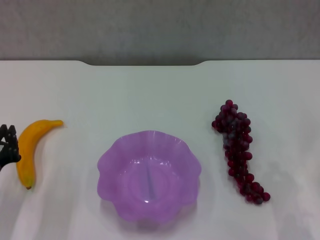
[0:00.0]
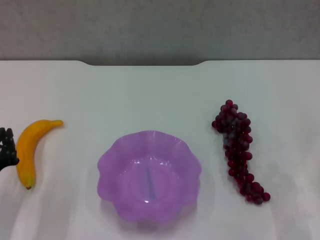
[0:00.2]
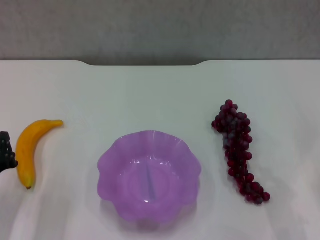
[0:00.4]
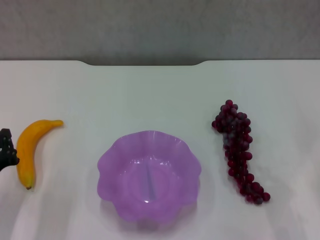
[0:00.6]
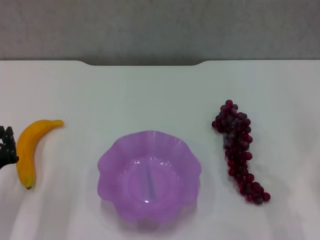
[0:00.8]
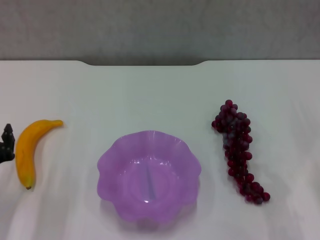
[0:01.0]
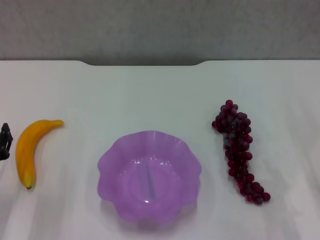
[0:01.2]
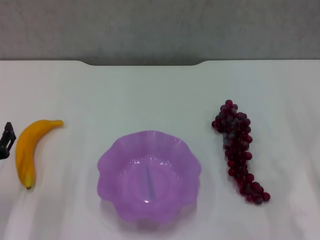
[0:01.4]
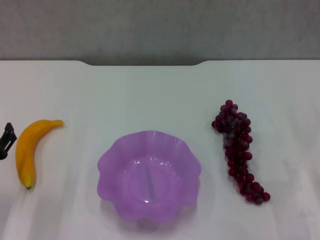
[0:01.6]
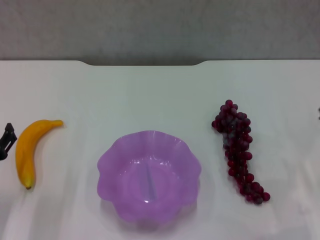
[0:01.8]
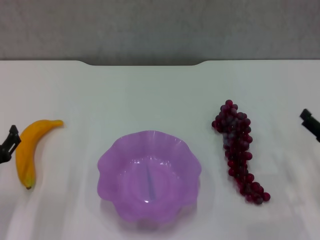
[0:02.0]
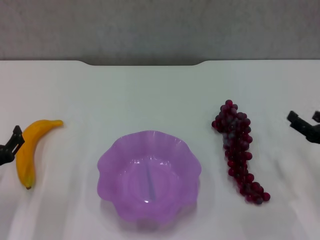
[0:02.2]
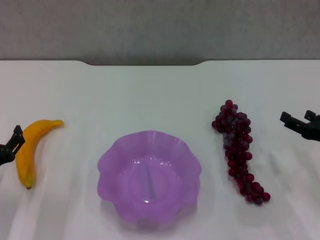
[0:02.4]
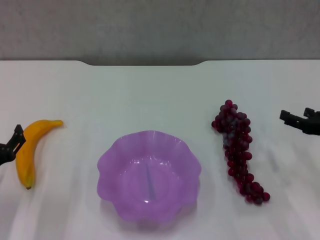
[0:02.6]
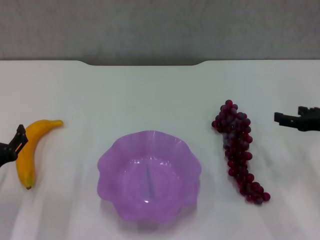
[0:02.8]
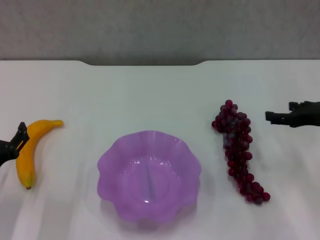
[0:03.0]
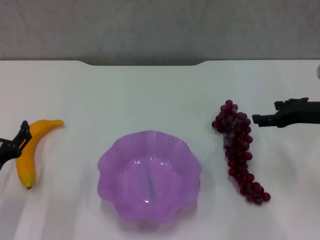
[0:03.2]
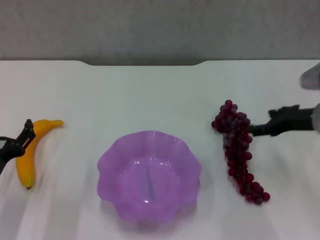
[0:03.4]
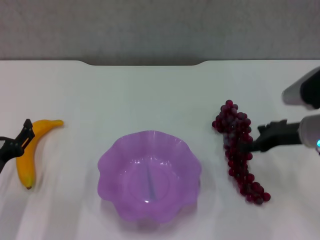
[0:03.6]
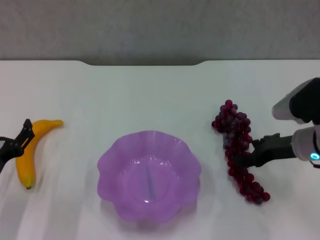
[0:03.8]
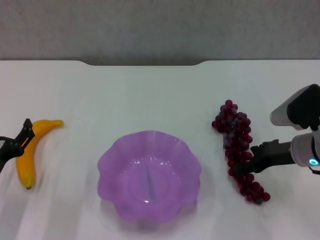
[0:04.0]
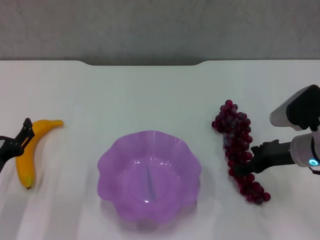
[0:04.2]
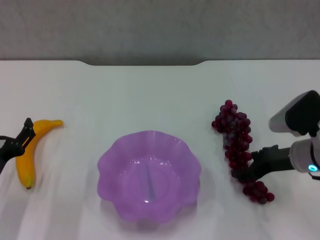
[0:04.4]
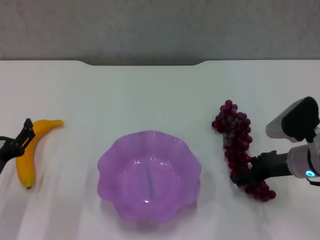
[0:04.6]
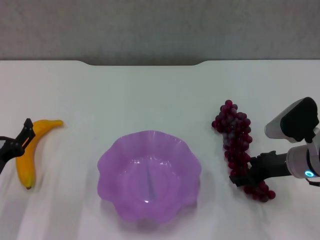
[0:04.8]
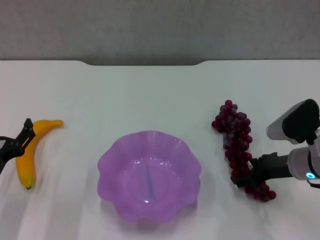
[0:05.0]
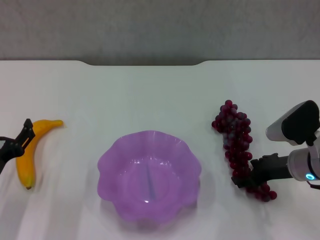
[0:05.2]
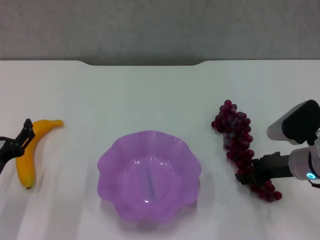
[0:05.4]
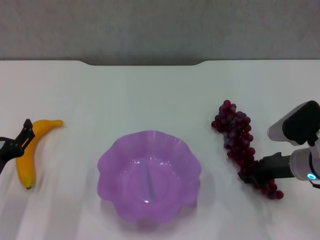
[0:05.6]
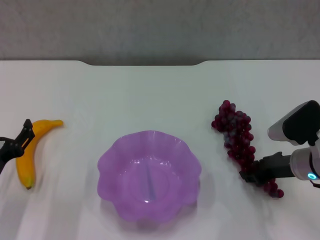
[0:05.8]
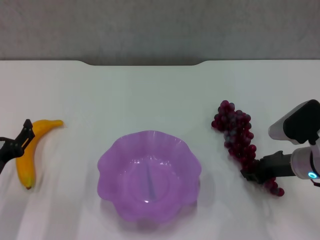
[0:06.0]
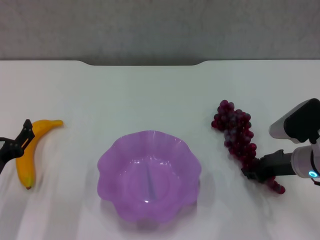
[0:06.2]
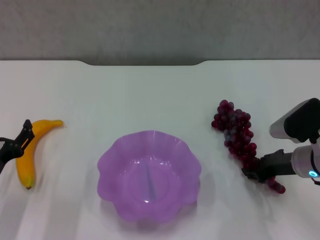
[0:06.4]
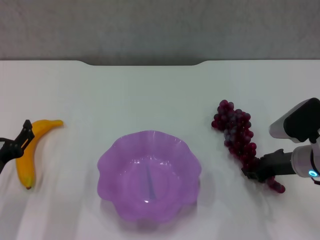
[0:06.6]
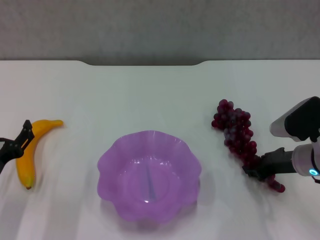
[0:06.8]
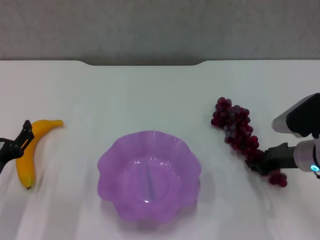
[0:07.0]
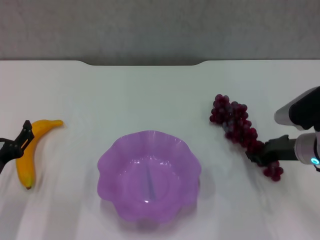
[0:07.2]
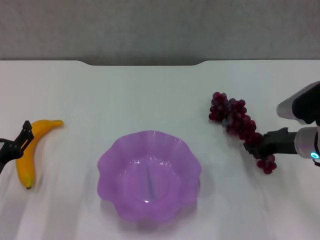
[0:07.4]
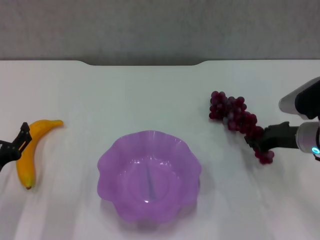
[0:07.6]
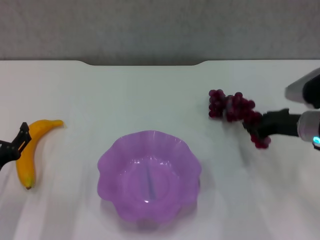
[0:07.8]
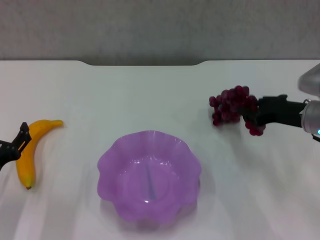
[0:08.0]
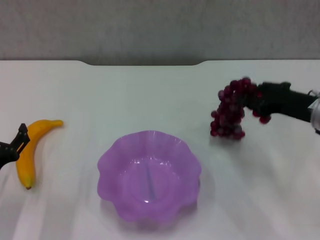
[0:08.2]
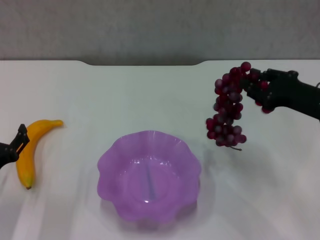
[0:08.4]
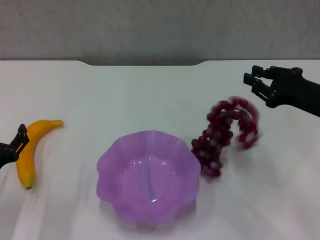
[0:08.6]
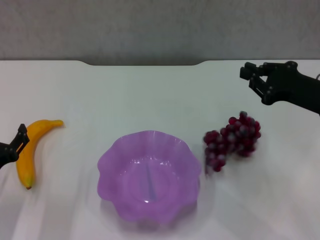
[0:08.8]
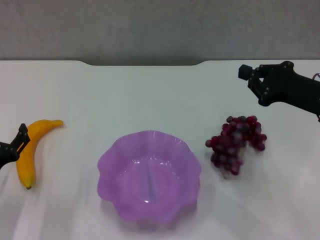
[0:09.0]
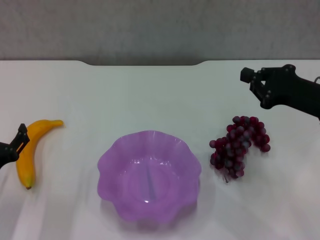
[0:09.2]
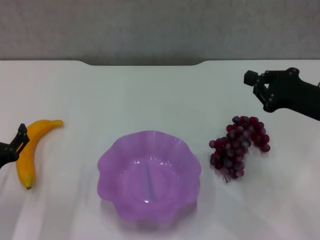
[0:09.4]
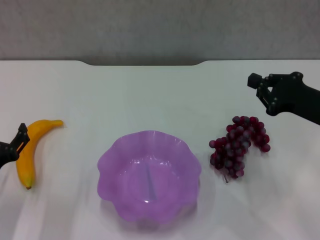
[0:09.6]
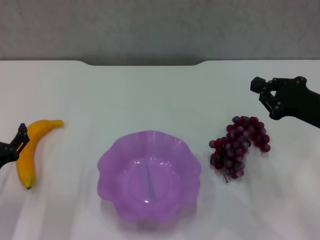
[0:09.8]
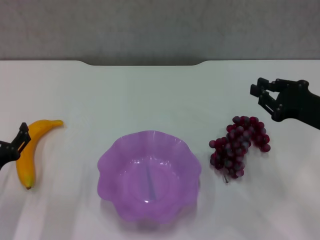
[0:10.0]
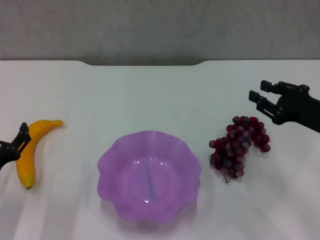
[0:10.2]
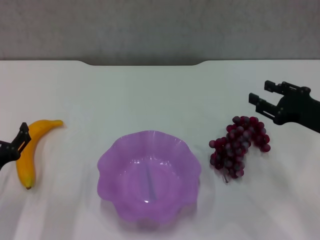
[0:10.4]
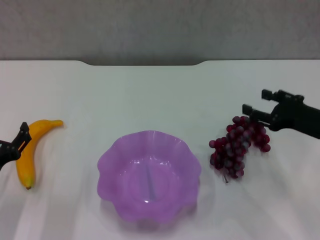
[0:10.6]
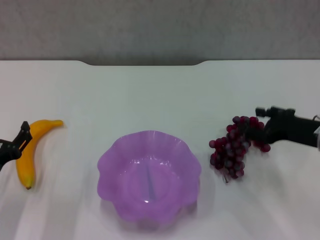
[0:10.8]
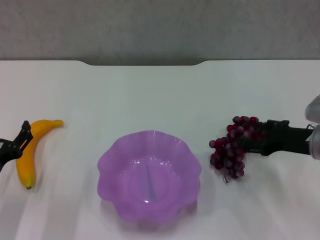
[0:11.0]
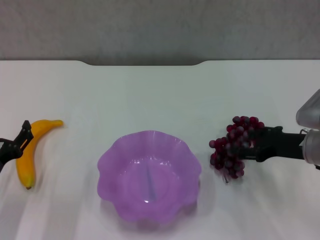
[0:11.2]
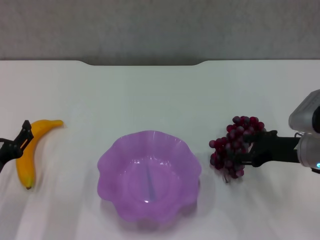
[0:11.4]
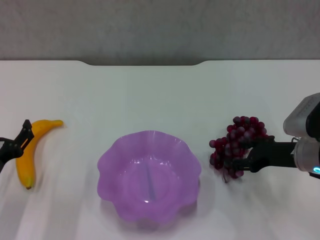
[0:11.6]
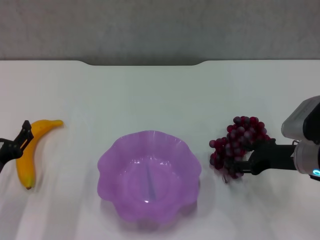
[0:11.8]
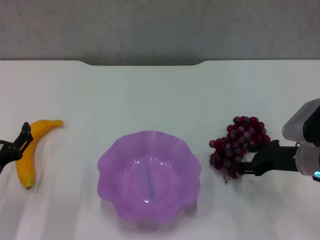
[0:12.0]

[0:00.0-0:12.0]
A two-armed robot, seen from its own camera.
0:00.0 to 0:01.6: The left gripper opens up.
0:01.6 to 0:03.0: The right gripper heads forward and upward, covering approximately 15 cm.
0:03.0 to 0:04.4: The right gripper shifts some 5 cm to the left.
0:04.4 to 0:06.0: The right gripper closes up.
0:06.0 to 0:07.6: There are only small adjustments of the grippers.
0:07.6 to 0:09.0: The right gripper shifts about 5 cm upward.
0:09.0 to 0:10.4: The grippers move only a little.
0:10.4 to 0:12.0: The right gripper shifts by approximately 5 cm, and opens up.

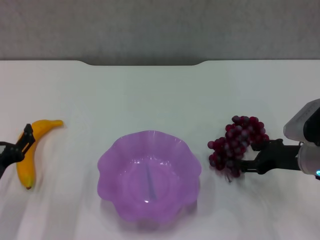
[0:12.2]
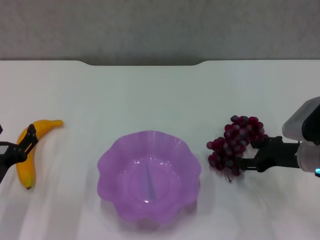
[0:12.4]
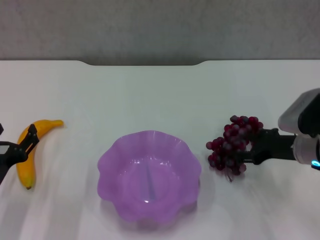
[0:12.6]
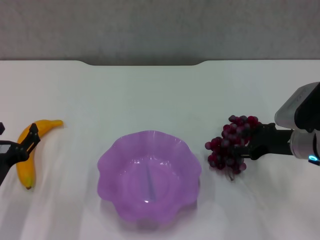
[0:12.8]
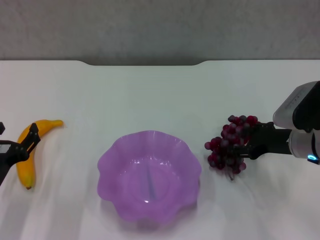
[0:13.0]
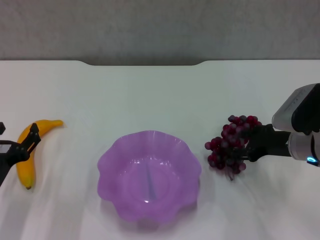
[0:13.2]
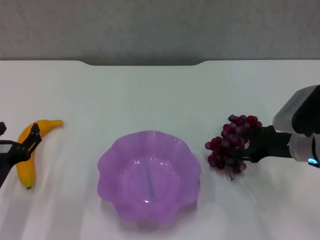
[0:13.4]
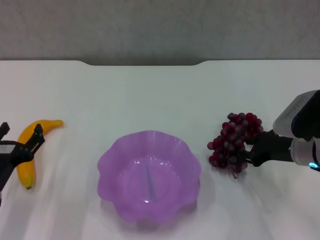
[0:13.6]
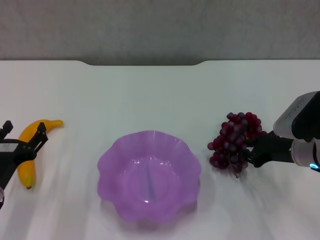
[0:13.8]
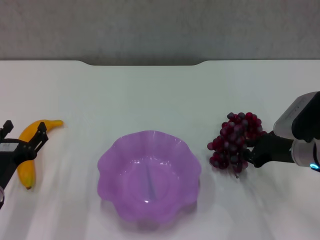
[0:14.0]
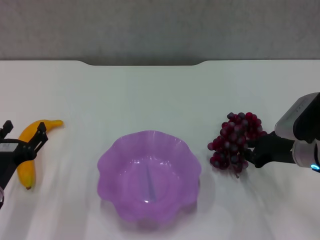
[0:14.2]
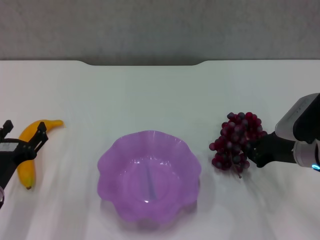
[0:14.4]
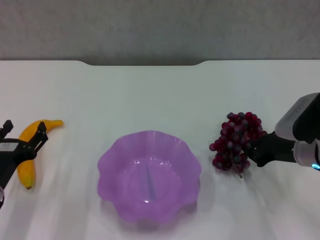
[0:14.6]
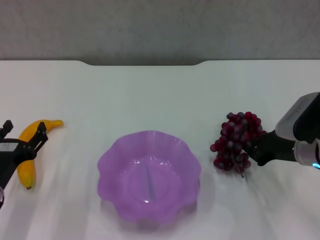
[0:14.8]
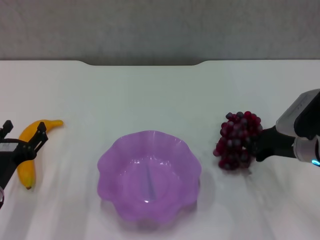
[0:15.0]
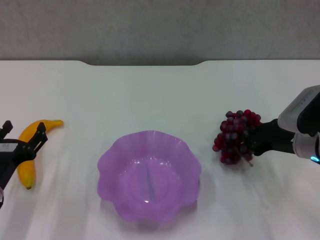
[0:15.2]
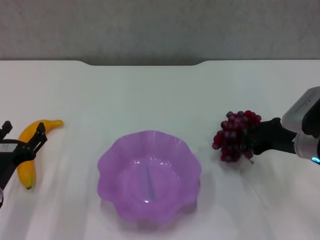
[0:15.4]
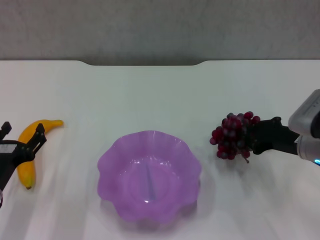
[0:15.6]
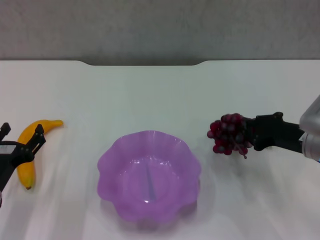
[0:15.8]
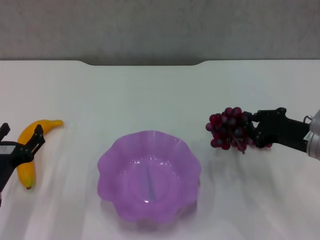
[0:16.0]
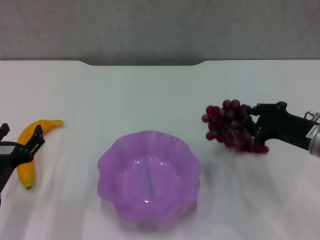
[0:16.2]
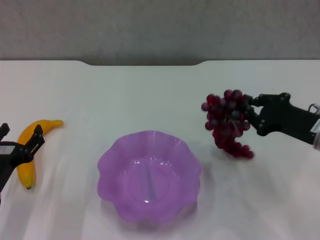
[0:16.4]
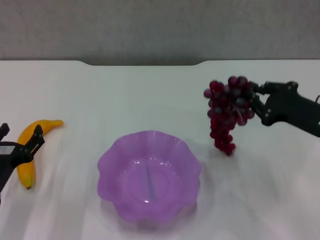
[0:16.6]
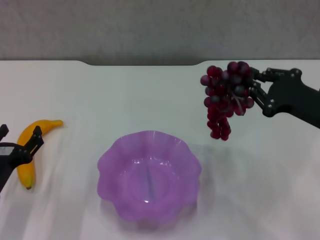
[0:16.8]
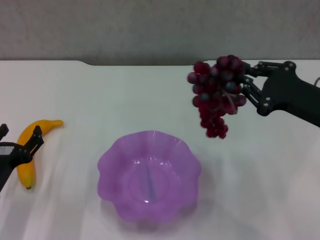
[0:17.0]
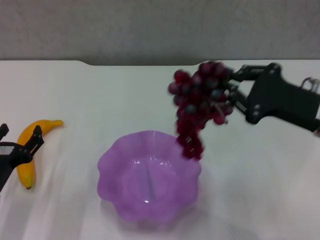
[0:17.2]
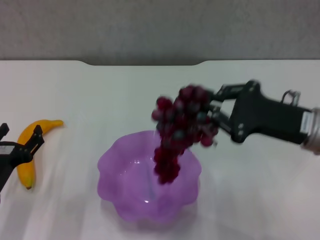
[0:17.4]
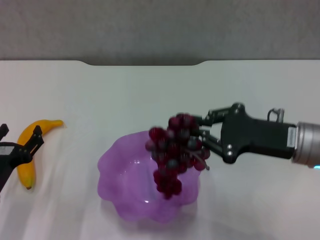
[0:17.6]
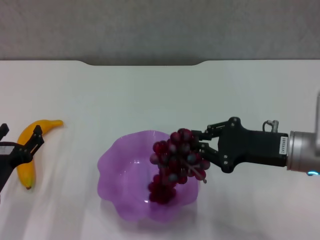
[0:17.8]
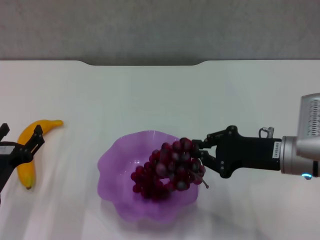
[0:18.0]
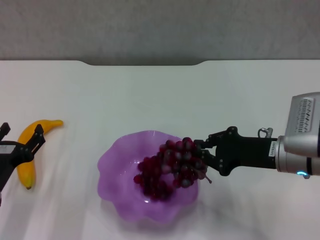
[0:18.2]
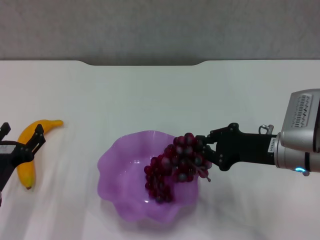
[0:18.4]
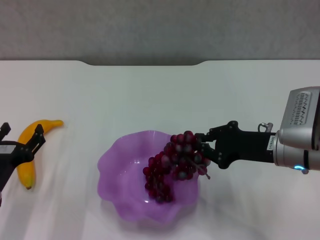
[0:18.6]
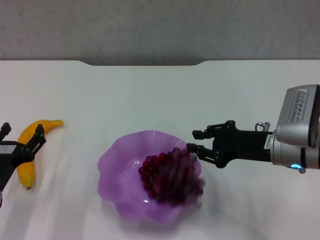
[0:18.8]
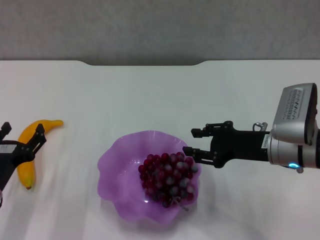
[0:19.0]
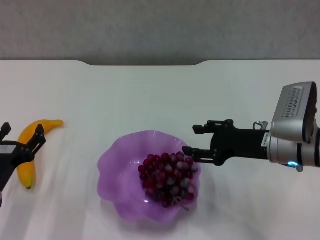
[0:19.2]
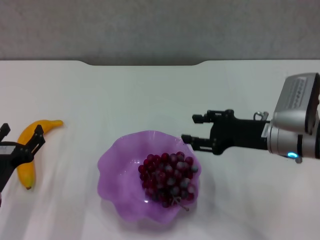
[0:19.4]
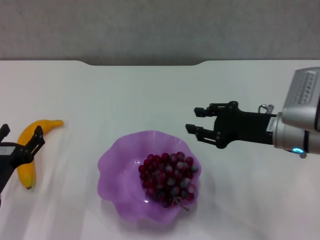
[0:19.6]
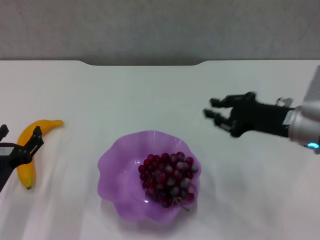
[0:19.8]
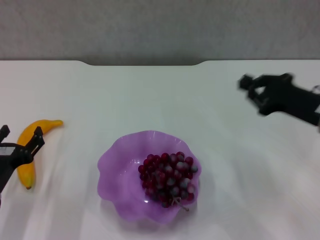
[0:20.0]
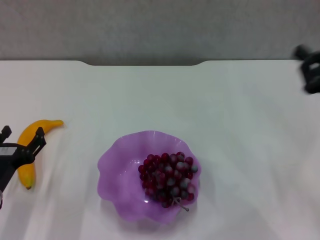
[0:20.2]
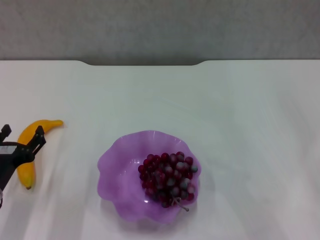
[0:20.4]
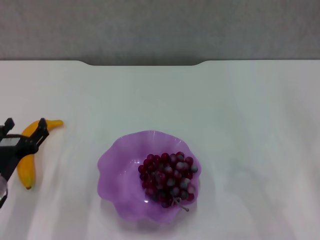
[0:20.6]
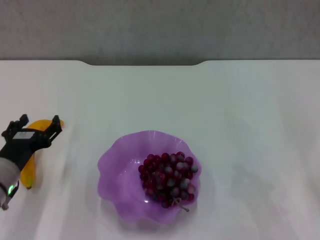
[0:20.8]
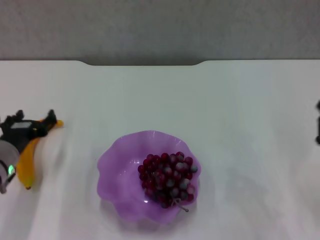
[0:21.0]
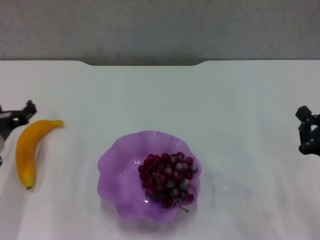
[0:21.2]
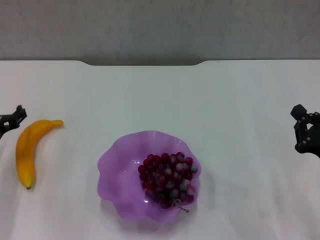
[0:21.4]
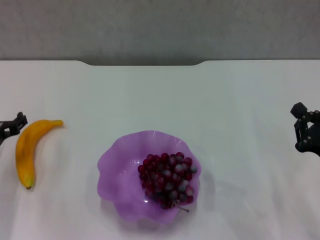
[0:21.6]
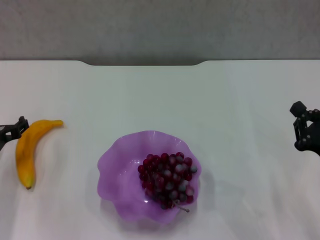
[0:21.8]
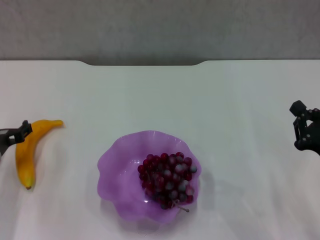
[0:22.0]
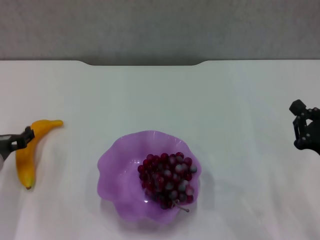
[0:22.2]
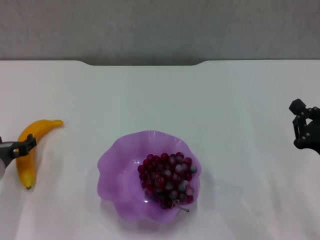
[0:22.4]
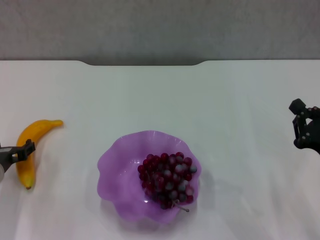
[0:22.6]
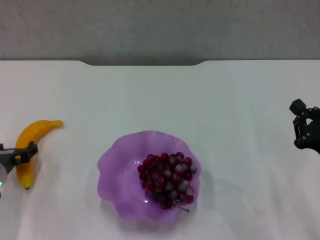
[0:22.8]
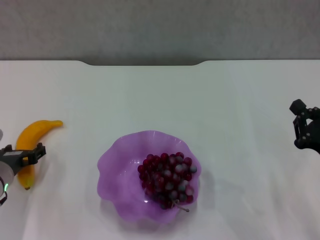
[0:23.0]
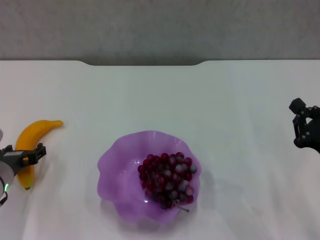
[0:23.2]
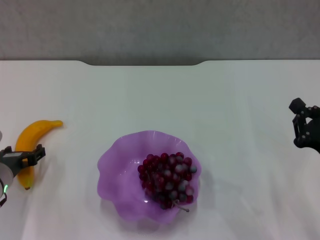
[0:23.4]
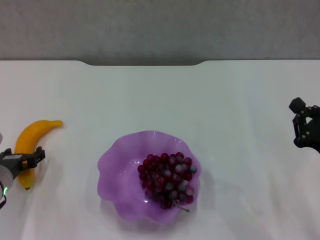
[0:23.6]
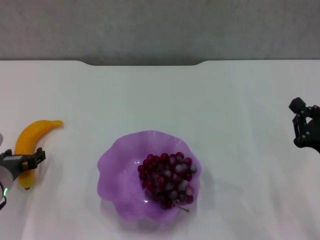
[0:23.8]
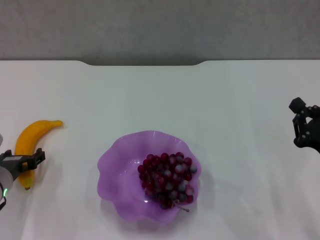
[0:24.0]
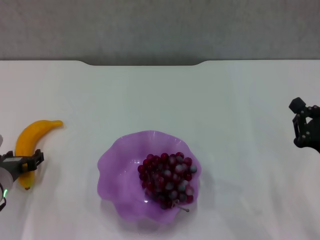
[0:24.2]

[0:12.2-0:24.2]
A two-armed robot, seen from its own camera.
Step, 0:12.2 to 0:14.4: Grasp the grape with right gripper.
Step, 0:14.8 to 0:19.0: Place the grape in the purple plate with right gripper.
0:12.2 to 0:13.8: The grippers stay close to where they were, moving slightly.
0:13.8 to 0:15.2: The right gripper closes.
0:15.2 to 0:16.6: The right gripper ends up about 5 cm from where it was.
0:16.6 to 0:18.2: The right gripper moves to the left, some 5 cm.
0:18.2 to 0:19.8: The grippers stay close to where they were, moving slightly.
0:19.8 to 0:21.2: The right gripper goes some 15 cm backward, downward and to the right, and closes; the left gripper shifts roughly 10 cm forward.
0:21.2 to 0:24.2: The grippers move only a little.
